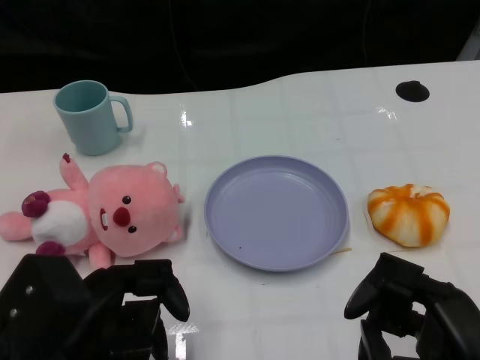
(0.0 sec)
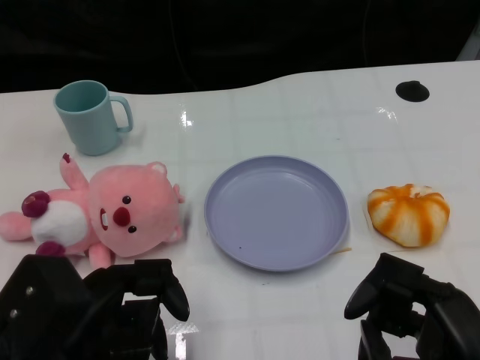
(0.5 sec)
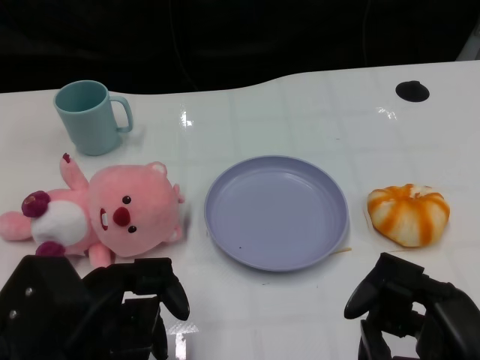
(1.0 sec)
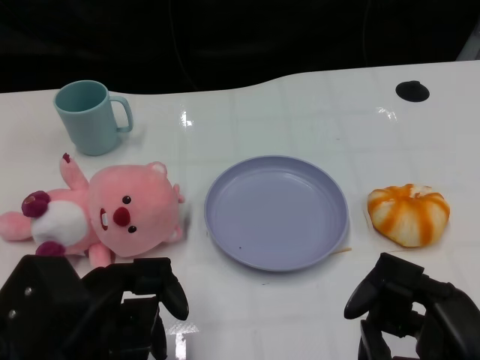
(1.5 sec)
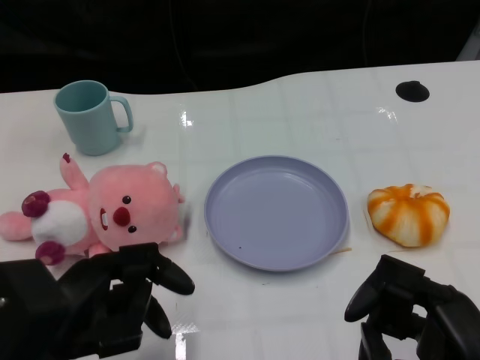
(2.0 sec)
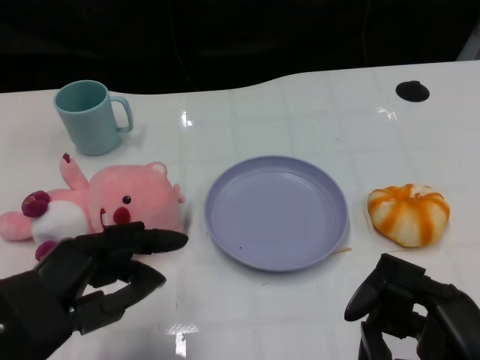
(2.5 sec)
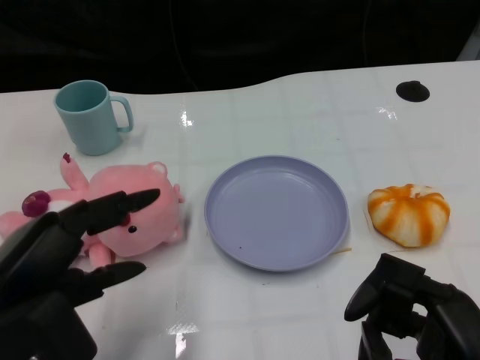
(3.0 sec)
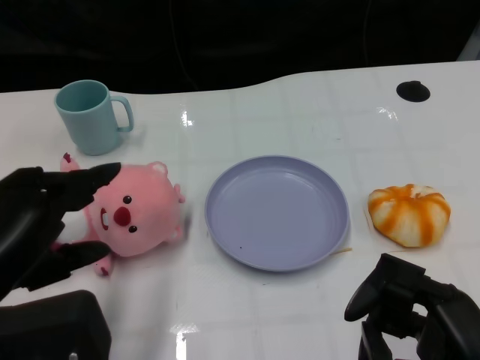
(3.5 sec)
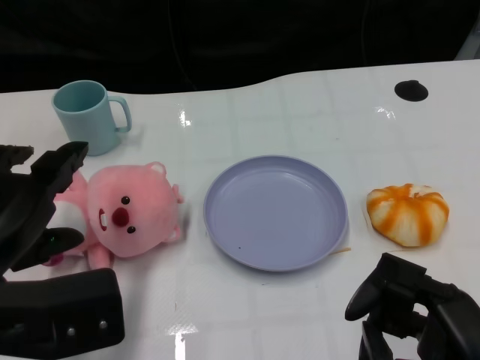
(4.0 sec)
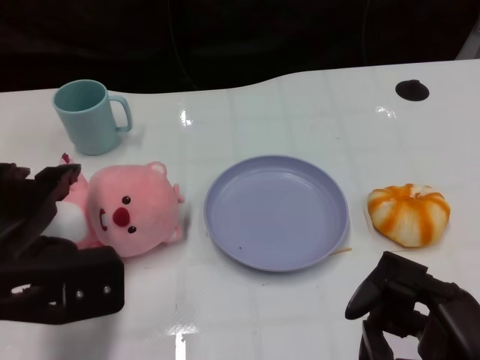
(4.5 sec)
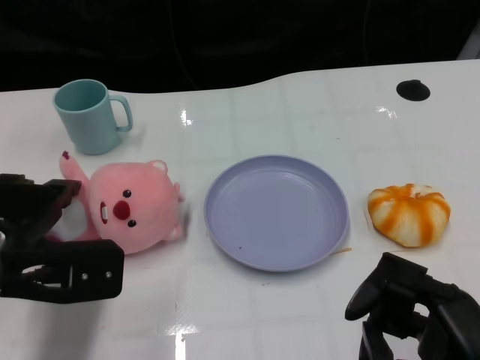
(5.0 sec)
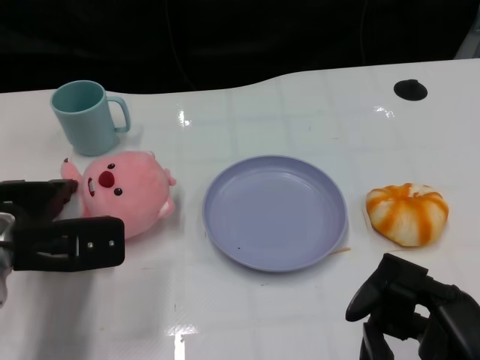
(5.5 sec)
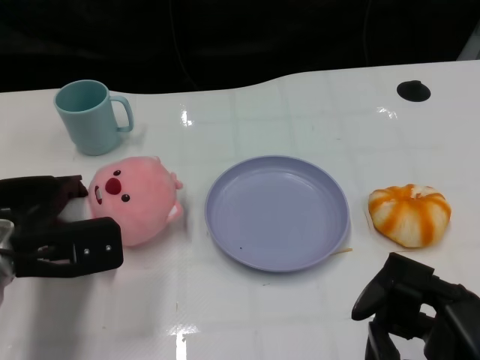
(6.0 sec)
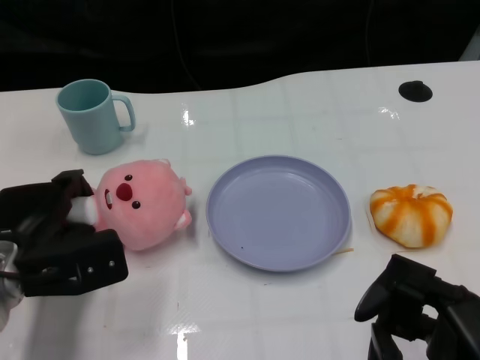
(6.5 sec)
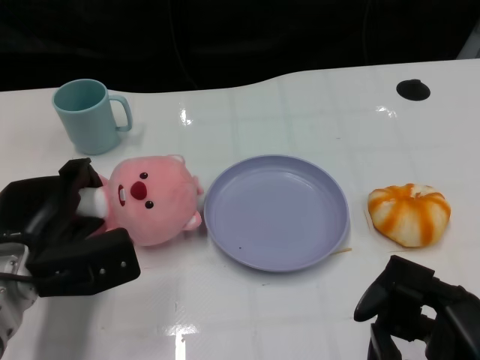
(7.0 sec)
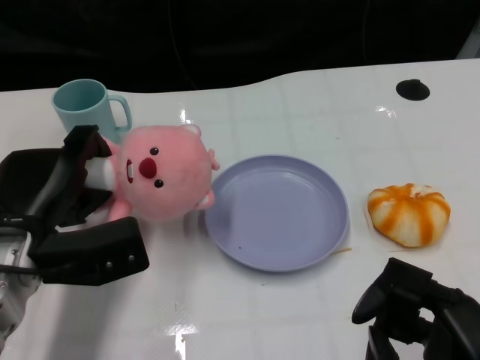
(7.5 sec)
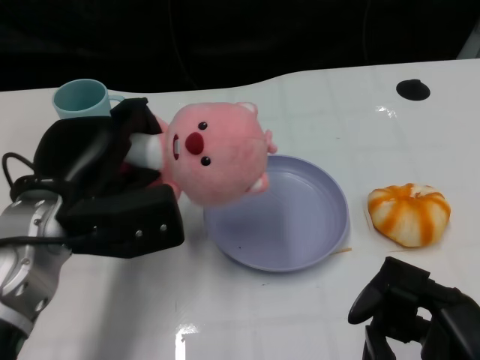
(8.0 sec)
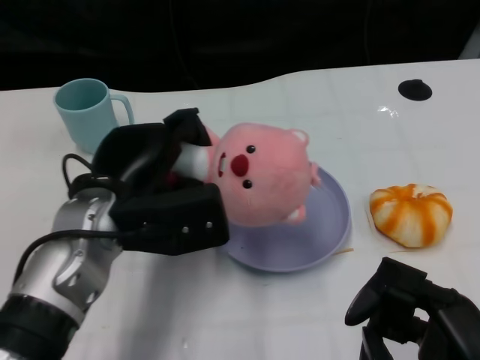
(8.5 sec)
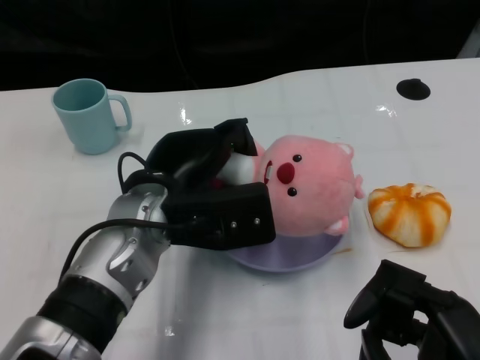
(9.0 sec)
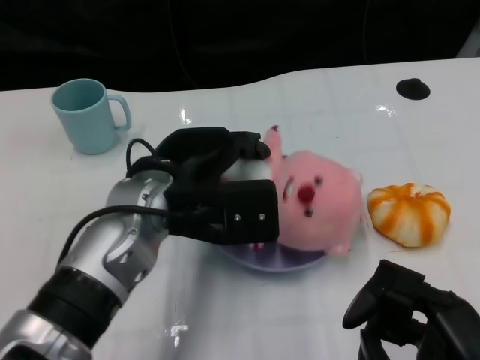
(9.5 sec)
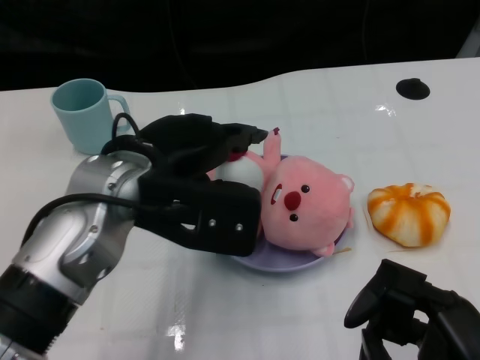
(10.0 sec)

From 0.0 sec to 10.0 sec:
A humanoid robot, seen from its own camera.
Task of the whole recording: Pick up the doll on one side of the plate and place it into the plate.
Step, from 2.0 sec to 7.0 sec: Grasp the pink doll with the left gripper.
From 2.0 sec to 4.0 sec: The left hand goes approximately 5 cm upward.
From 4.0 sec to 6.0 sec: The left hand goes some 15 cm forward and downward.
From 6.0 sec to 8.0 sec: The left hand goes roughly 10 cm upward and to the right.
From 8.0 sec to 10.0 sec: The left hand travels to the right by approximately 5 cm.

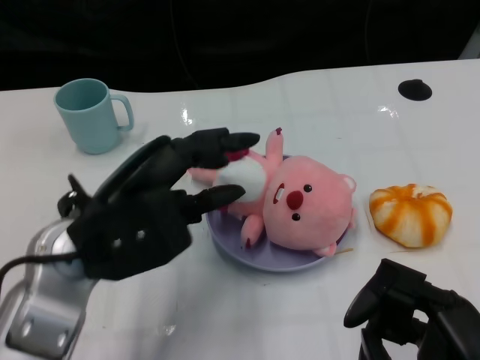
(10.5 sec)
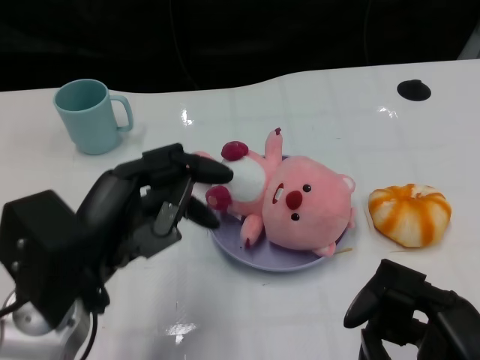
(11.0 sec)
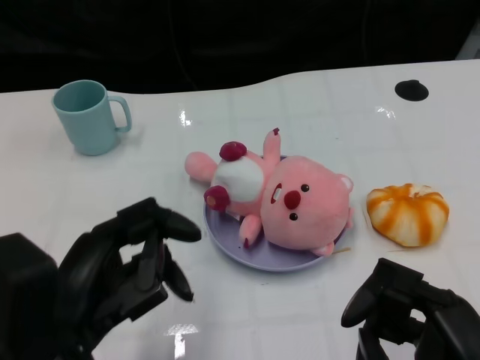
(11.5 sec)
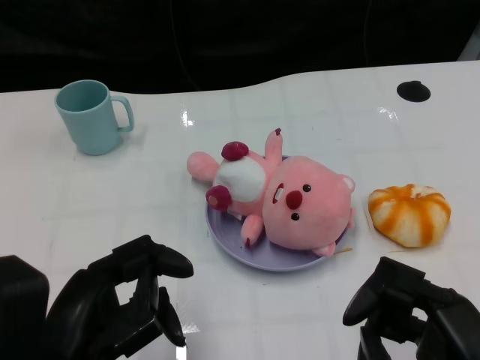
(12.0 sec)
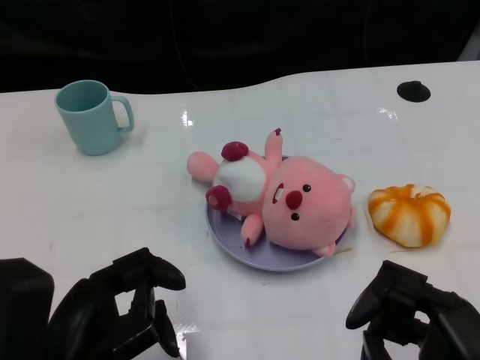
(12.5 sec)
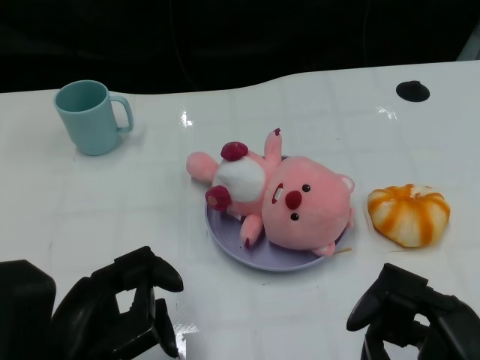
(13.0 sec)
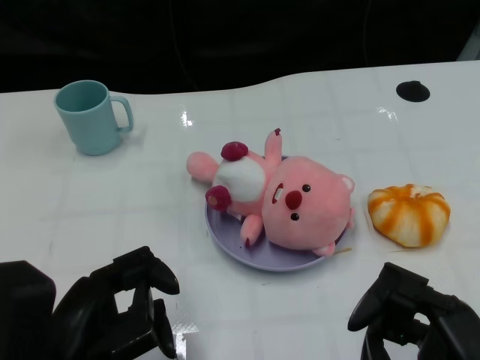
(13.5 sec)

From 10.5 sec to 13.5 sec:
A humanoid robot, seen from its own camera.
Task of the whole recording: Pick up the doll on one side of the plate and place it into the plate.
From 10.5 sec to 12.0 sec: The left hand moves backward, approximately 10 cm.
From 12.0 sec to 13.5 sec: There are only small adjustments of the hands.

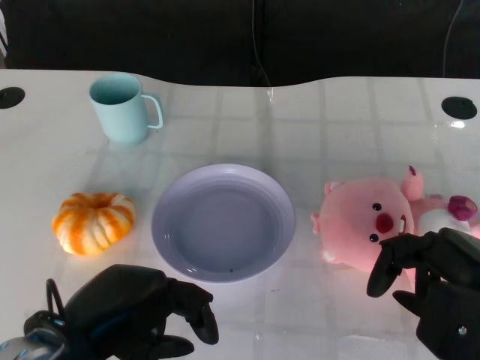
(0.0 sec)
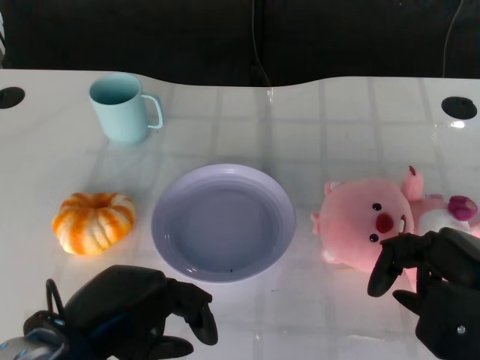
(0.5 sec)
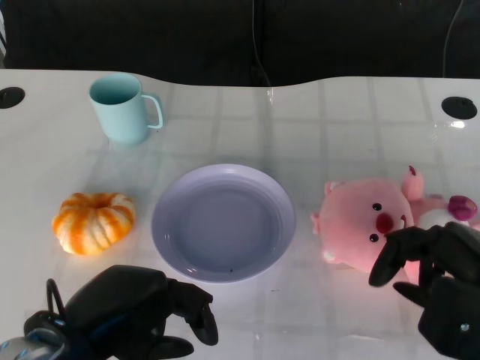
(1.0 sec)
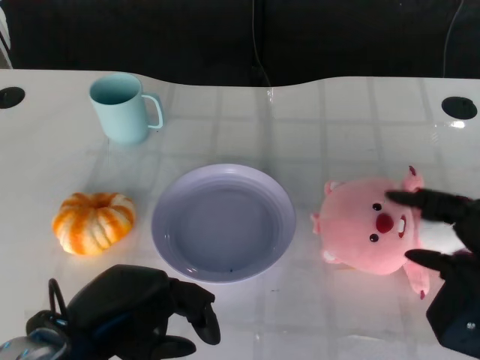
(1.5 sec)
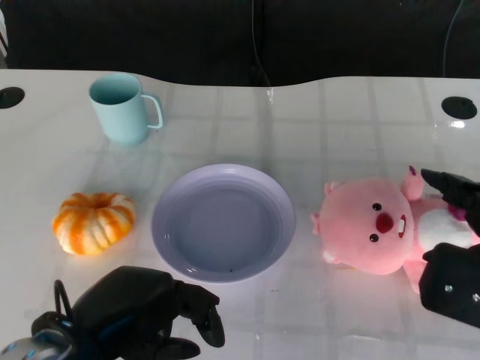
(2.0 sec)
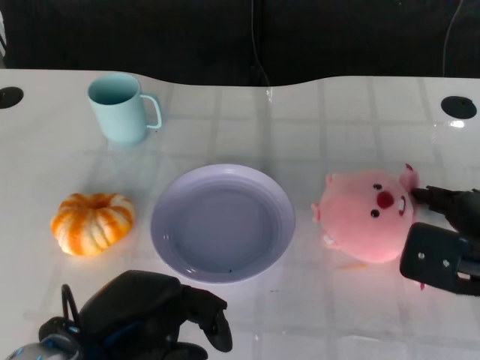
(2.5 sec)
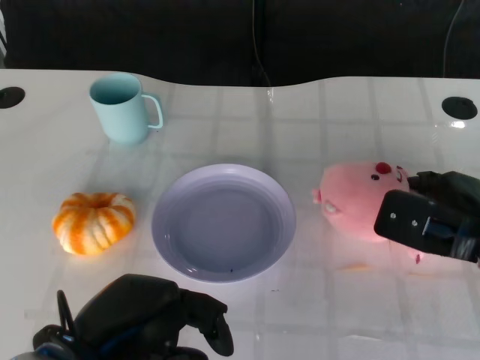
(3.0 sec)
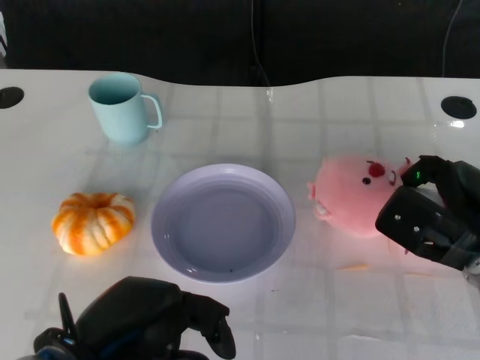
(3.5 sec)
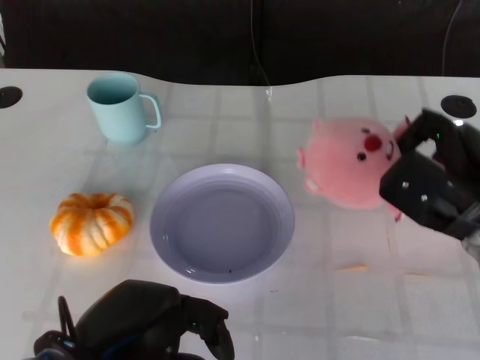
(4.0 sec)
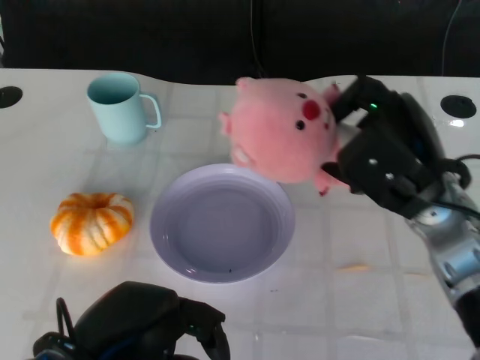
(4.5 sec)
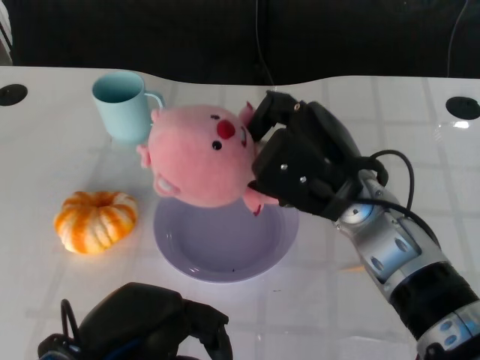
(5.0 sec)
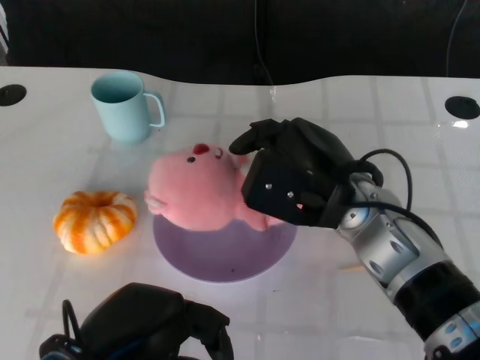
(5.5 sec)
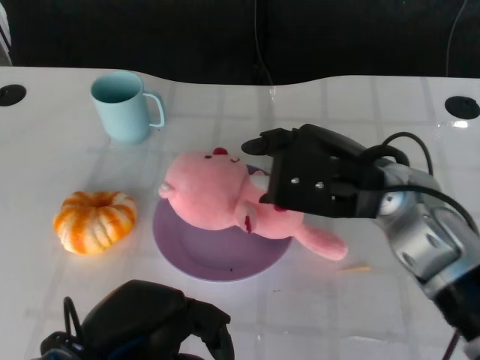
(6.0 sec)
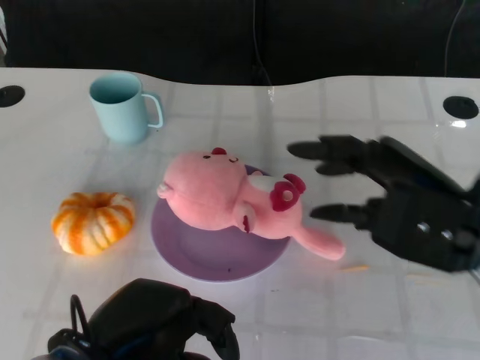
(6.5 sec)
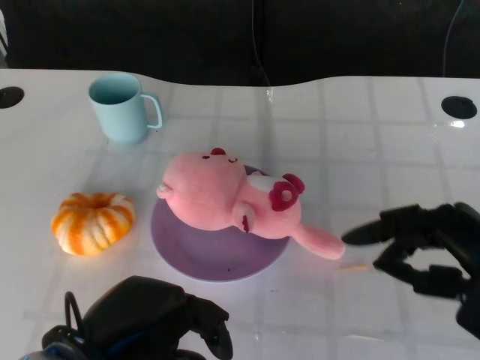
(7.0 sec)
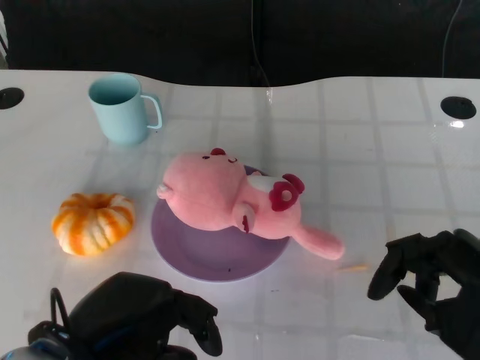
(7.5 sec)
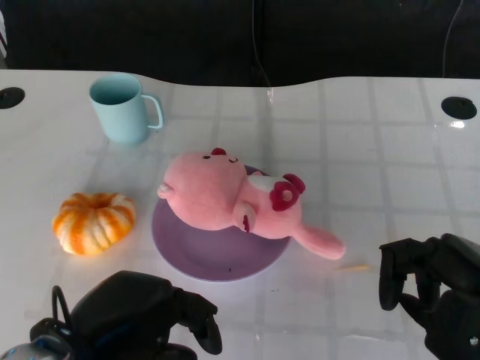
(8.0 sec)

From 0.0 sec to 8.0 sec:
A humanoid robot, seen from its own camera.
Task of the whole recording: Pick up the doll on the other side of the plate and place it into the plate.
Step, from 1.0 sec to 4.0 sec: Grasp the pink doll with the right gripper.
Step, from 4.5 sec to 6.5 sec: Place the pink doll into the plate with the right gripper.
From 2.0 sec to 4.0 sec: The right hand travels forward by roughly 10 cm.
From 4.0 sec to 6.0 sec: The right hand goes approximately 10 cm to the left and upward.
From 6.0 sec to 8.0 sec: The right hand heads to the right and backward, covering about 15 cm.

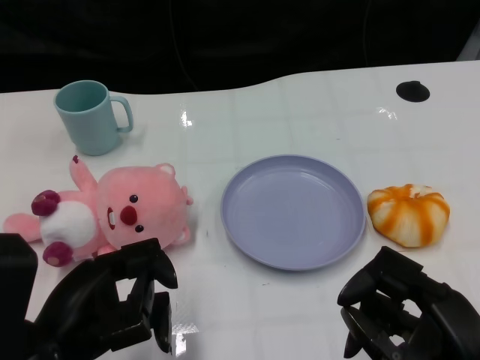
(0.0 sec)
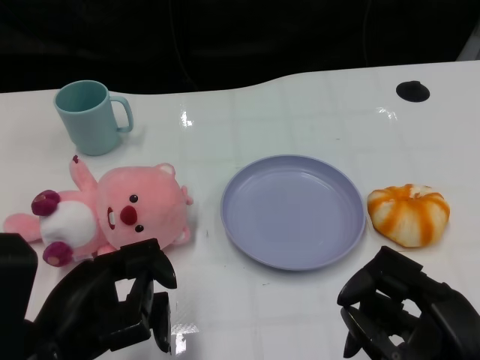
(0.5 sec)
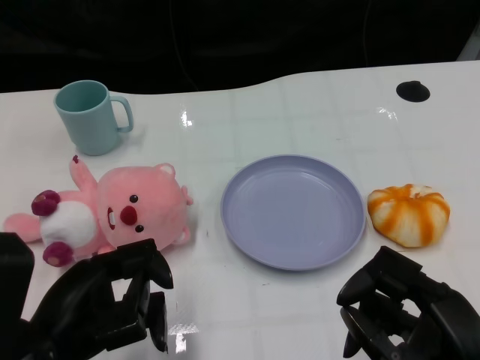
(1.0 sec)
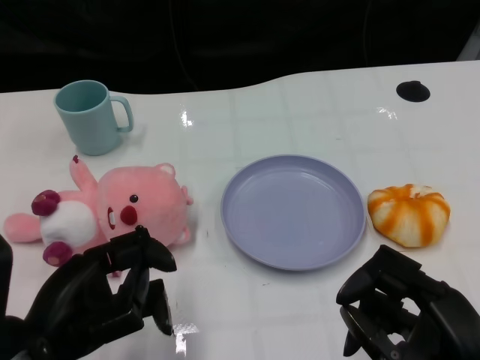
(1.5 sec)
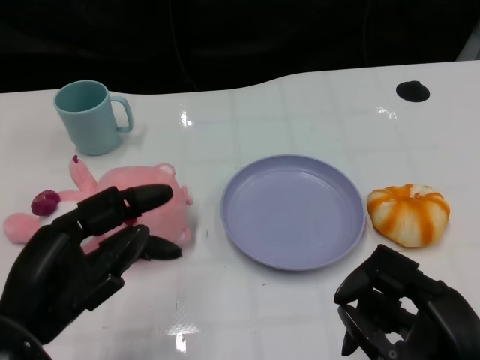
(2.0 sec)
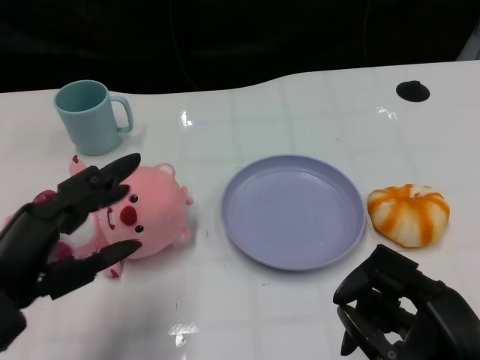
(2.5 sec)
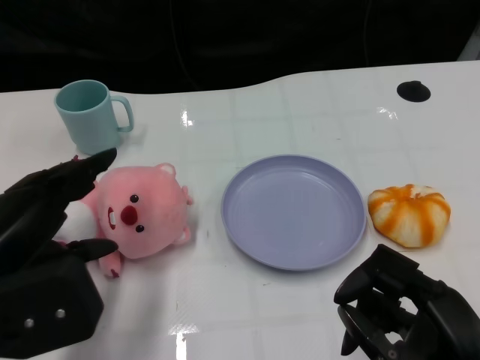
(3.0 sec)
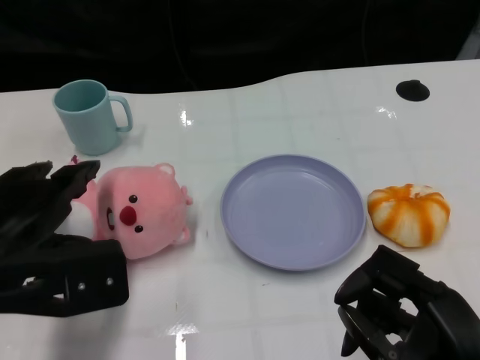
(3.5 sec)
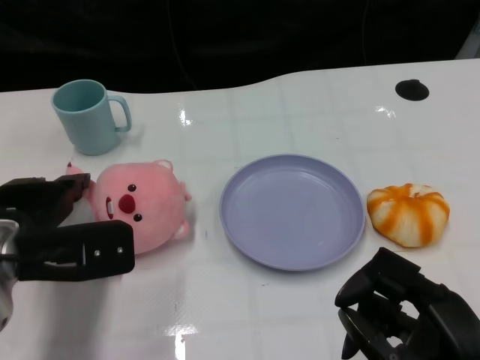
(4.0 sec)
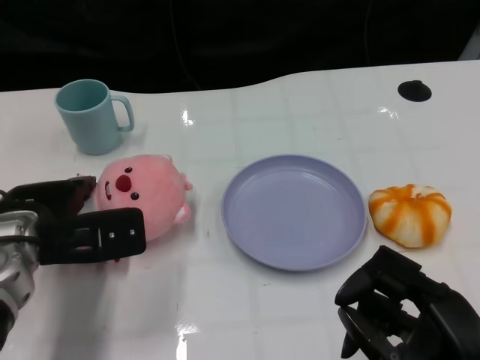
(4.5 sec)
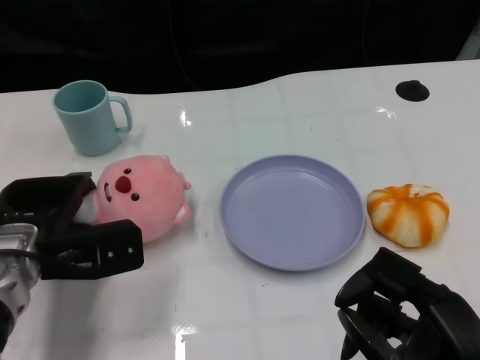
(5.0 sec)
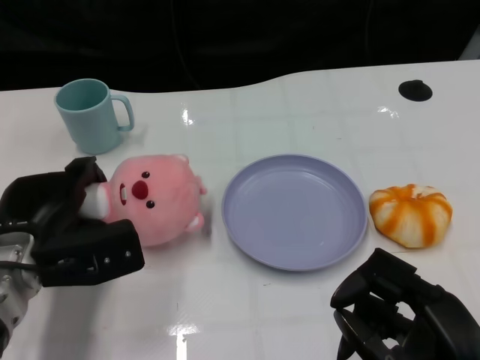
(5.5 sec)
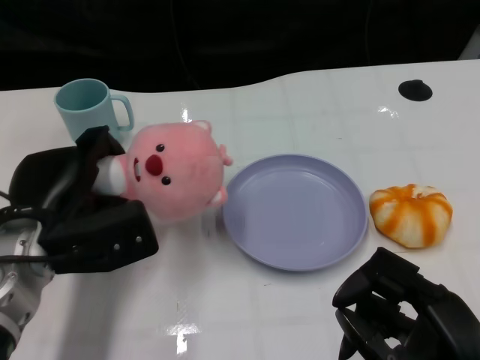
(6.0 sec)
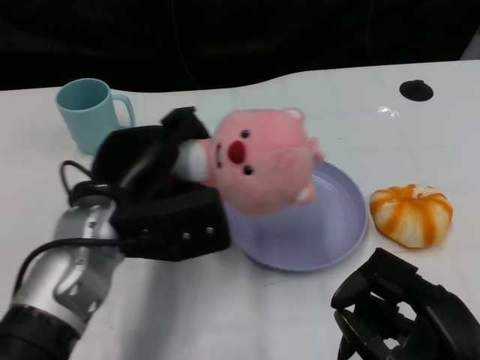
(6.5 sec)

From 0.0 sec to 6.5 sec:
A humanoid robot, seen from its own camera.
Task of the whole recording: Pick up the doll on one side of the plate and place it into the plate.
Step, from 1.5 sec to 5.5 sec: Grasp the pink doll with the left gripper.
From 2.0 sec to 4.5 sec: The left hand goes approximately 15 cm forward.
From 4.5 sec to 6.5 sec: The left hand is displaced to the right by roughly 5 cm.
